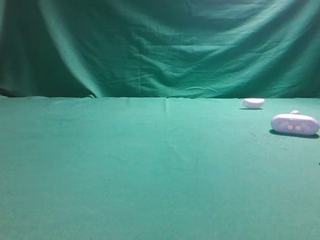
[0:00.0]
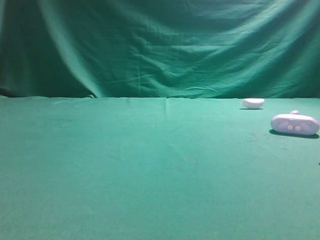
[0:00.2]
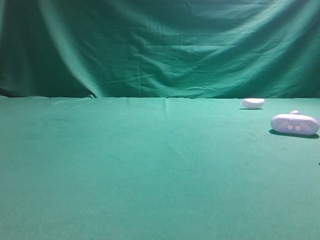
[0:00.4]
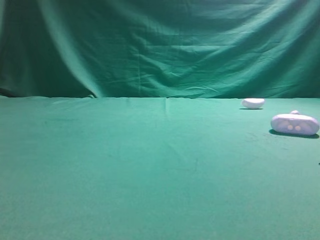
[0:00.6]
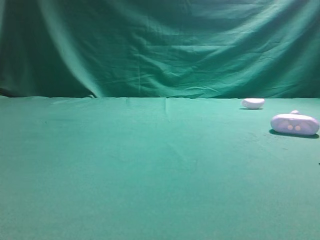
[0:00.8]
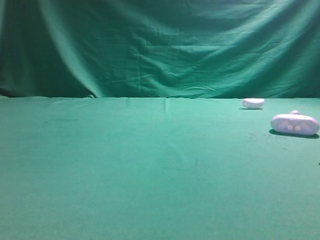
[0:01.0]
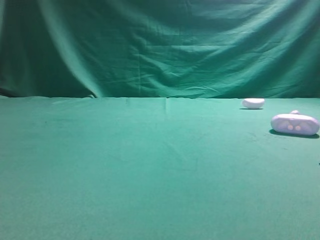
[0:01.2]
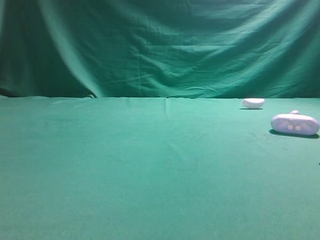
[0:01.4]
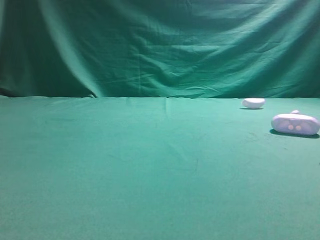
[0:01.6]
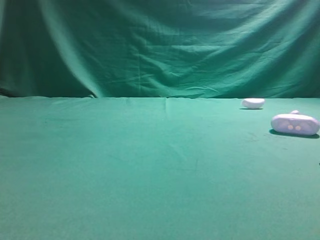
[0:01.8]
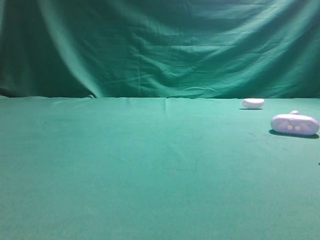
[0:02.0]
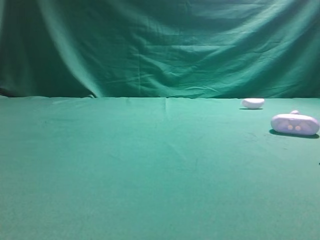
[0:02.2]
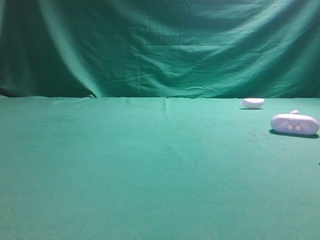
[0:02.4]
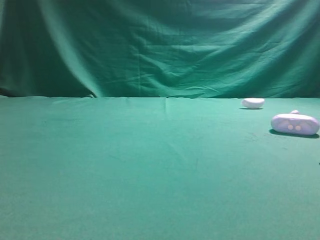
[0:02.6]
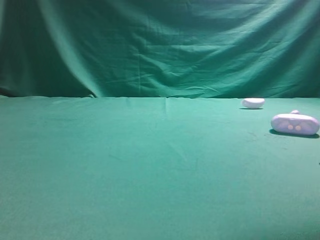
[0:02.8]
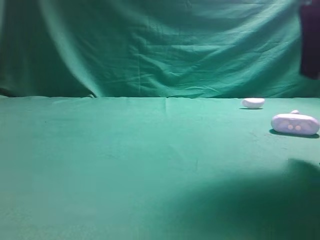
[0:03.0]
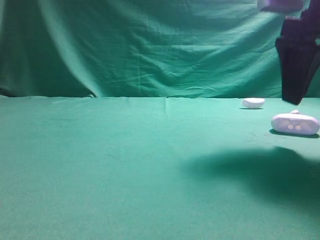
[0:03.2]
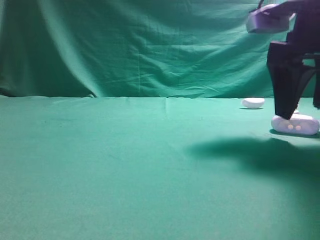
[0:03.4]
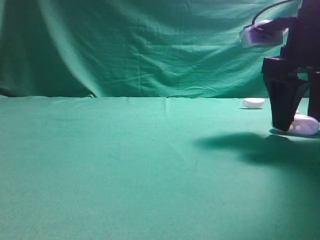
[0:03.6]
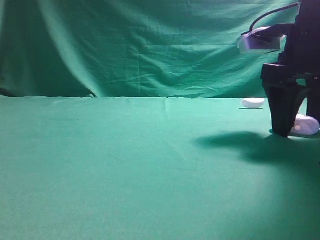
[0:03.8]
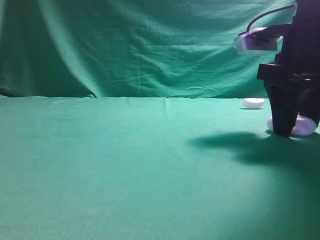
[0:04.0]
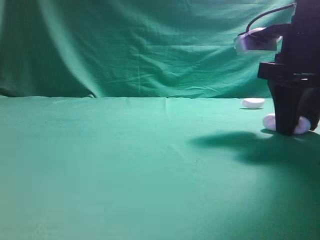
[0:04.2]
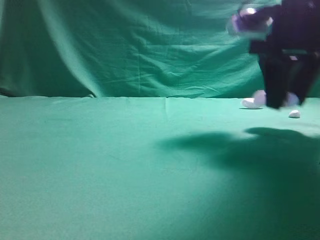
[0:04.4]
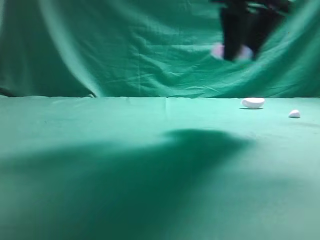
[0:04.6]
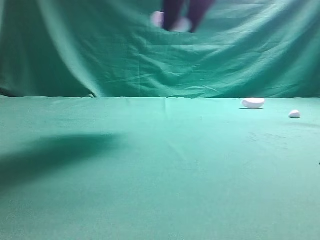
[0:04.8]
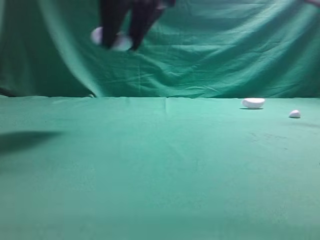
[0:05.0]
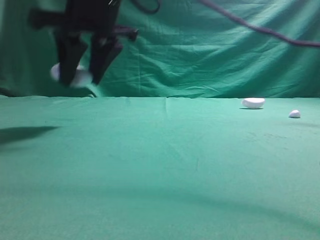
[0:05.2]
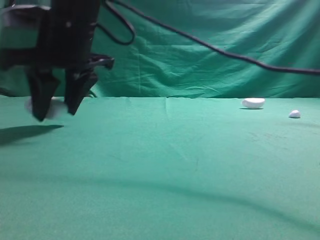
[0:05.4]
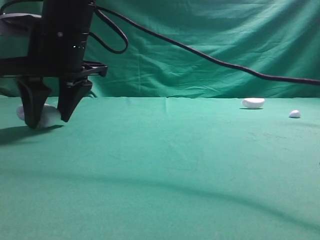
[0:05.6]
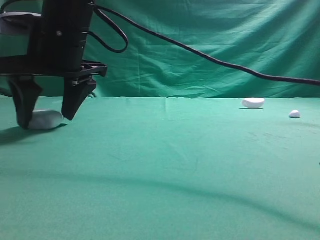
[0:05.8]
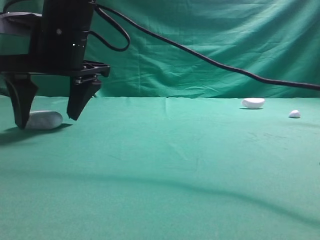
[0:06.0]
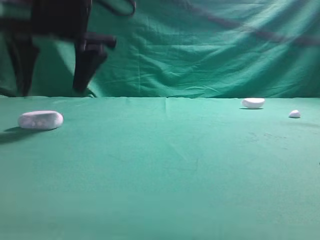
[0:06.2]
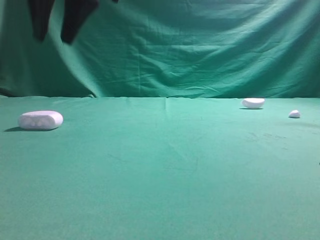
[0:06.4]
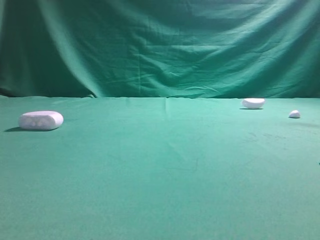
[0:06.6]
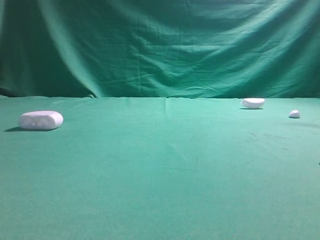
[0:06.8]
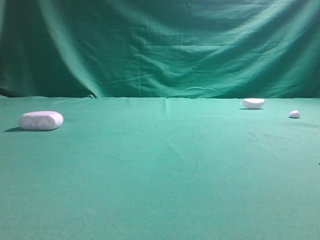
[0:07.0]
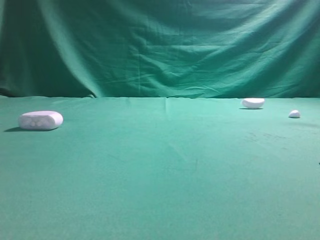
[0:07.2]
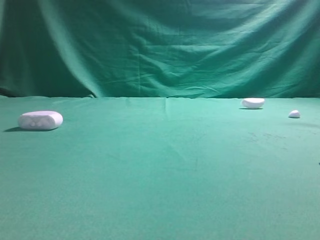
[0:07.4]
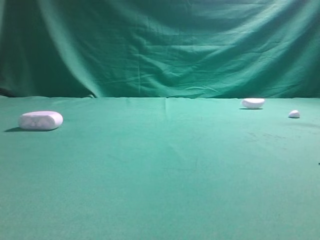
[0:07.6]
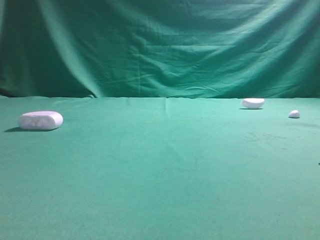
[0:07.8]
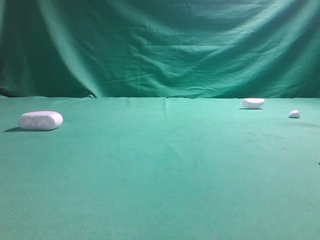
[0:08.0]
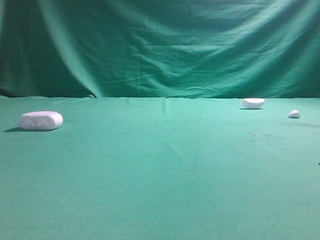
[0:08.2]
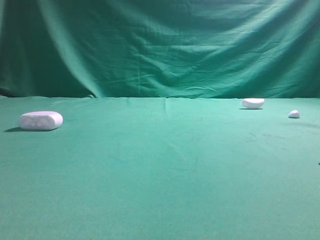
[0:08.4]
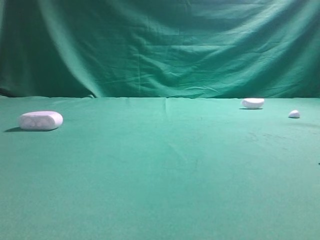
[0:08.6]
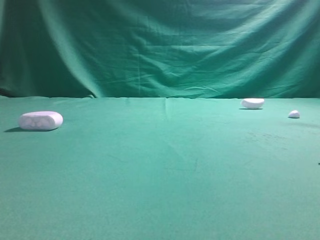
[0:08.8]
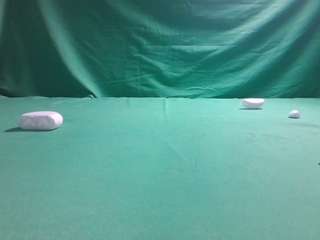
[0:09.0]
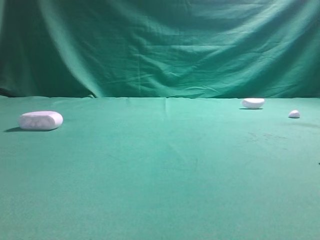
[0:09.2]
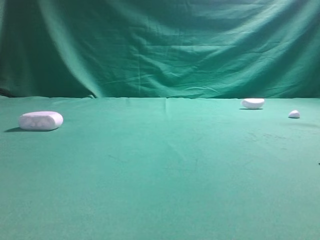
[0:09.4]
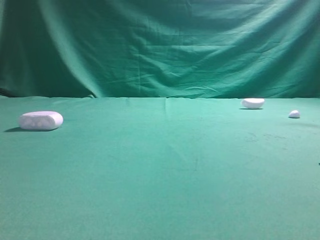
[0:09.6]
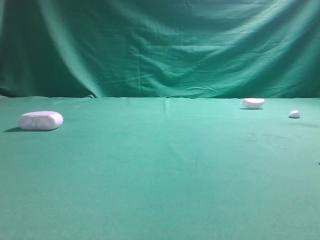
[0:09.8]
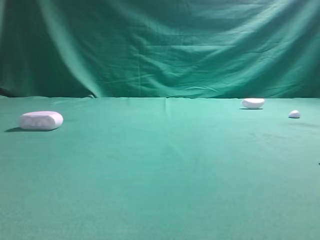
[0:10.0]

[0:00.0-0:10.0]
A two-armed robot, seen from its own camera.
Step, 0:00.0 to 0:04.4: Grasp the Bluetooth earphone case.
Step, 0:04.6 to 0:06.2: Place bluetooth earphone case on the left side of the table.

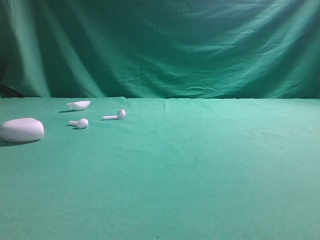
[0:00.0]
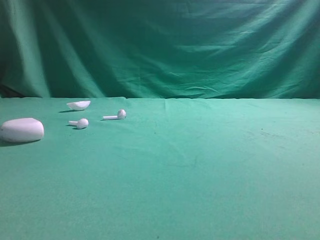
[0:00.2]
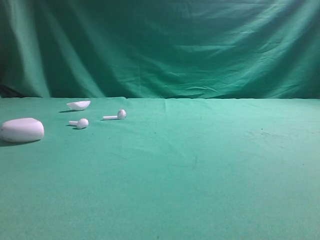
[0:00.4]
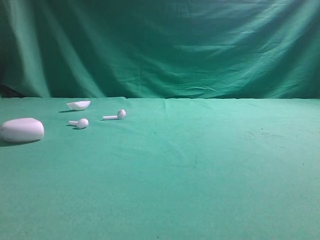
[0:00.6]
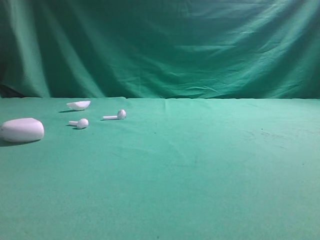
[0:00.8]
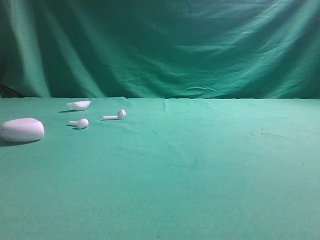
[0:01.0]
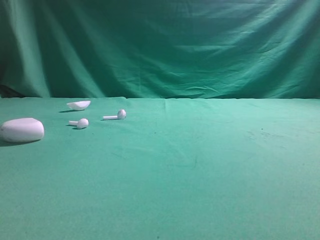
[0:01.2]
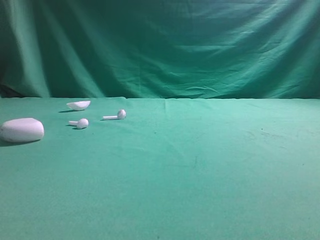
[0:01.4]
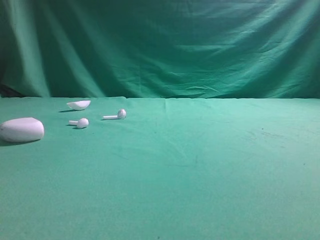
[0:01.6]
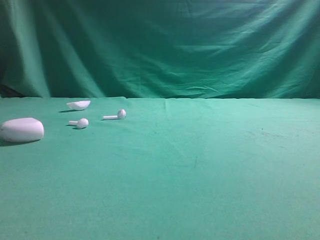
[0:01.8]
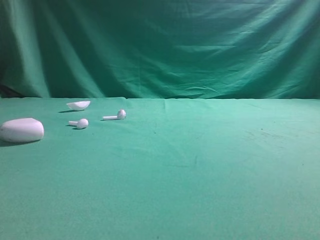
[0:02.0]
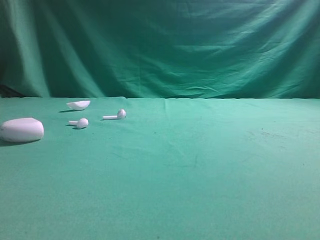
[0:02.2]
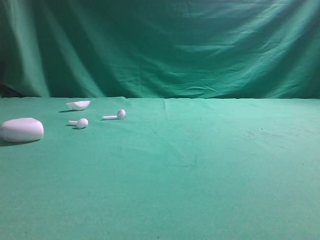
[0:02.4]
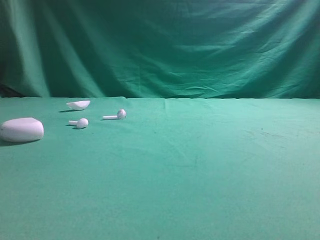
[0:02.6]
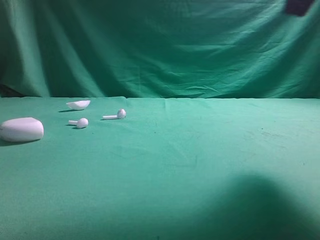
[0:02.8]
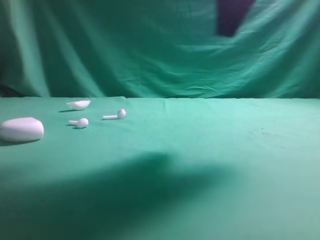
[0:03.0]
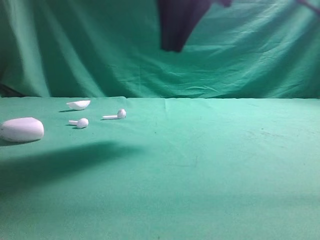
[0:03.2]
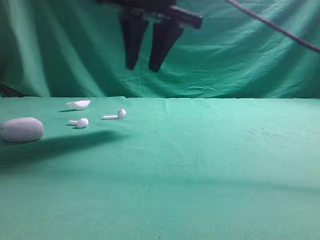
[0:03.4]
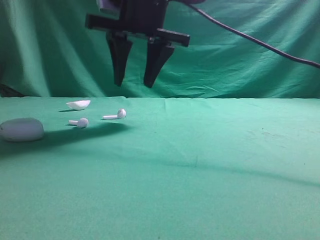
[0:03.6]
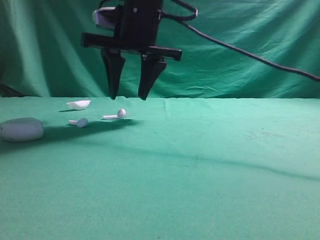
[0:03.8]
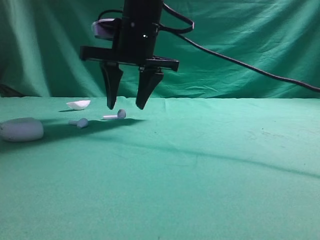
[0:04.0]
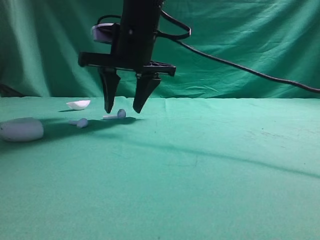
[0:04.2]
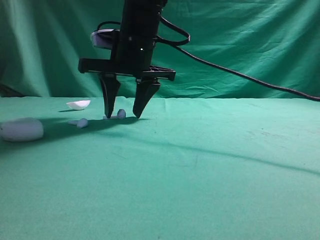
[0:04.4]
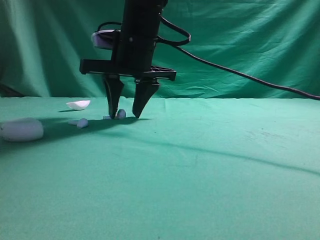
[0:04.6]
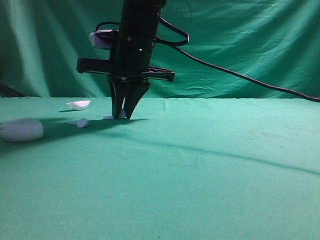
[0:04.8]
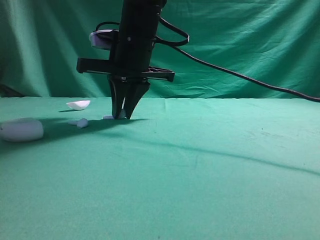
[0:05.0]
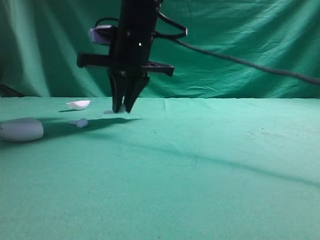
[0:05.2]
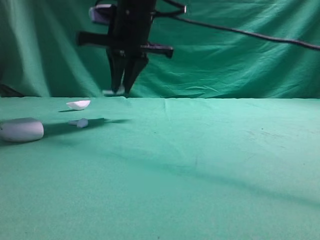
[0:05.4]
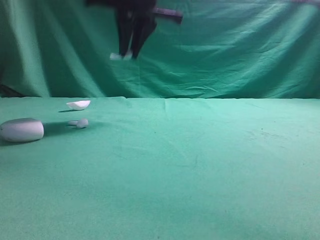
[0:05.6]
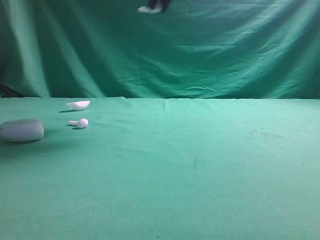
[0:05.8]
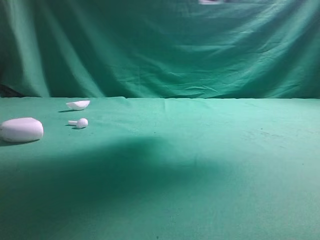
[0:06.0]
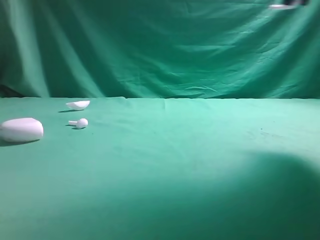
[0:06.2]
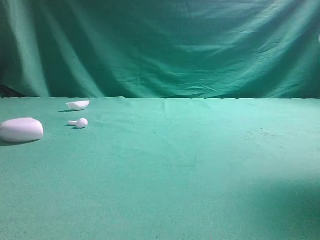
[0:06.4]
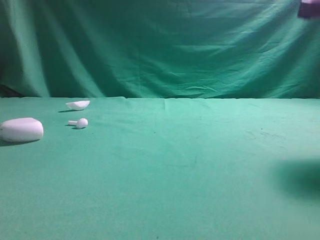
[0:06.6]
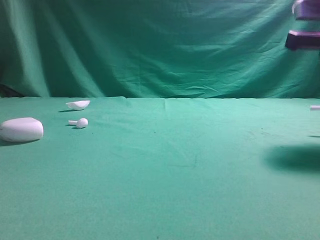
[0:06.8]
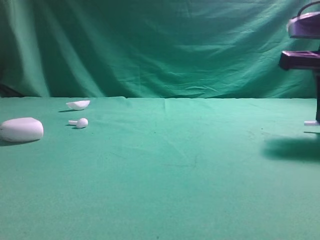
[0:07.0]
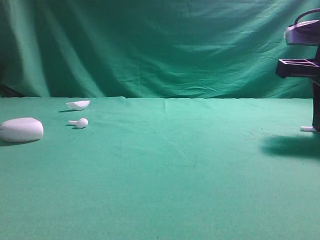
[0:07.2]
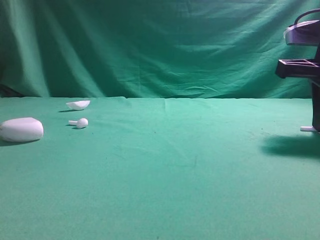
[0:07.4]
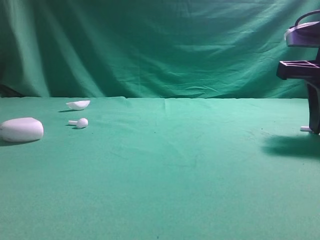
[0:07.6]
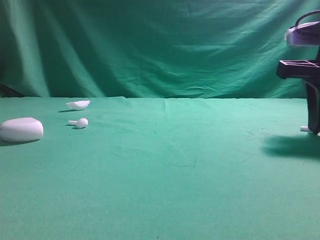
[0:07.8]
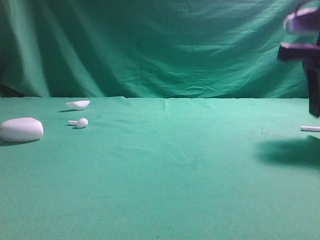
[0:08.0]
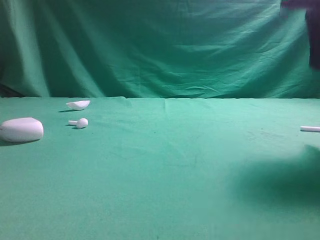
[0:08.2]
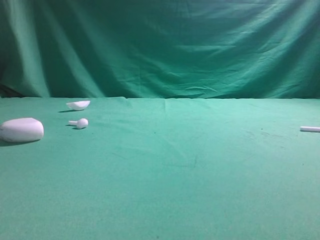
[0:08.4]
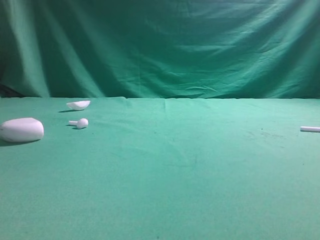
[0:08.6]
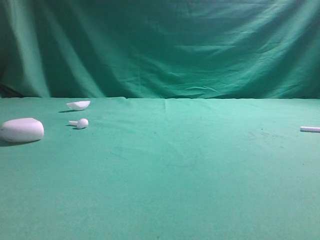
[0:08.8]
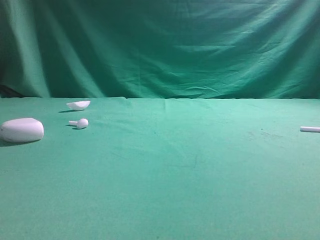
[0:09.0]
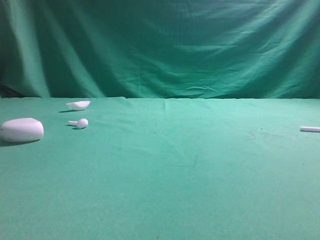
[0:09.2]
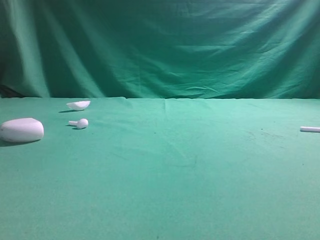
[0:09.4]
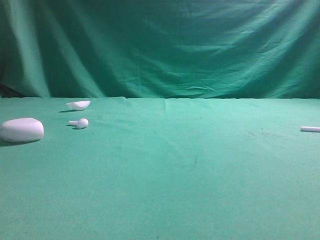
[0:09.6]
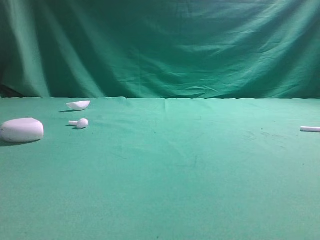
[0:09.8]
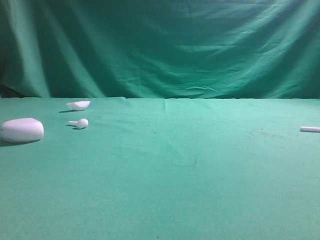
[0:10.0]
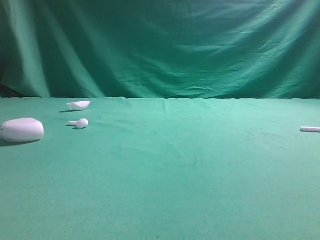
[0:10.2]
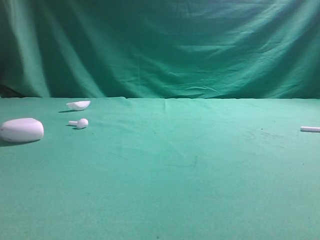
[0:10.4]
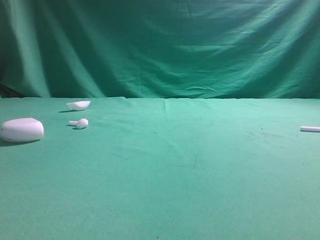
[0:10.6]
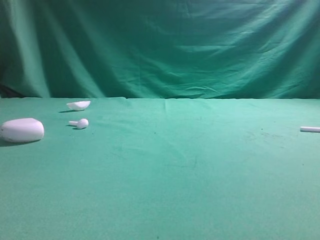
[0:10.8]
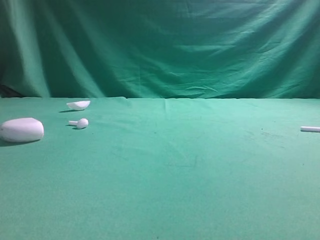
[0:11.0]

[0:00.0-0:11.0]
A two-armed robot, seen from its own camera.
Step, 0:00.0 to 0:05.2: Grasp the Bluetooth earbud.
Step, 0:05.4 to 0:07.8: Place bluetooth earbud on the right side of the table.

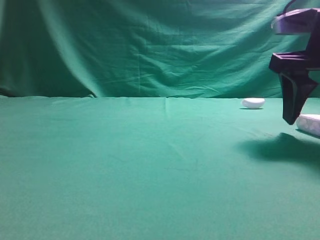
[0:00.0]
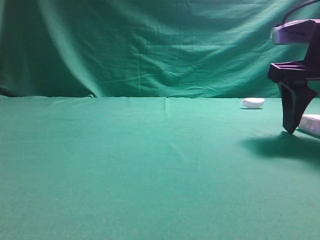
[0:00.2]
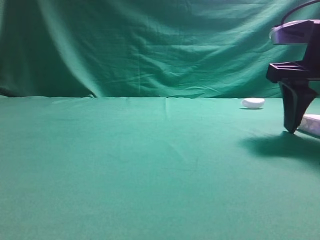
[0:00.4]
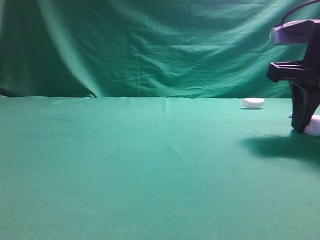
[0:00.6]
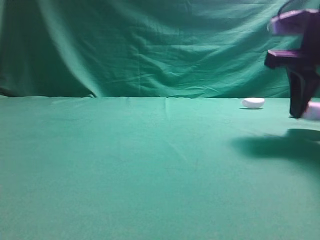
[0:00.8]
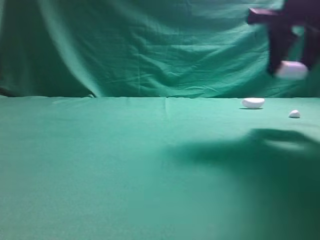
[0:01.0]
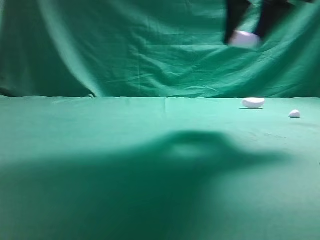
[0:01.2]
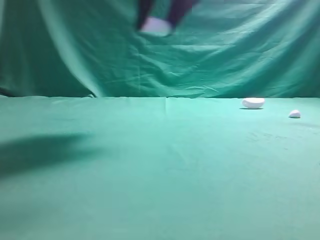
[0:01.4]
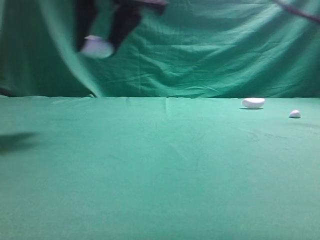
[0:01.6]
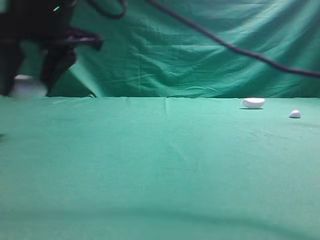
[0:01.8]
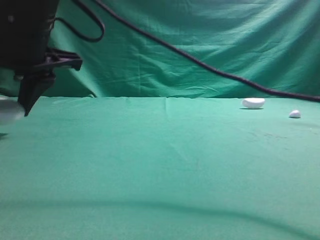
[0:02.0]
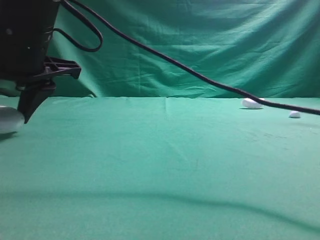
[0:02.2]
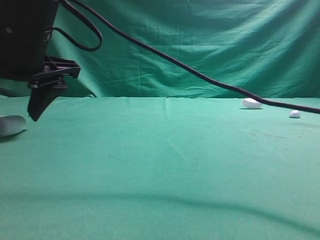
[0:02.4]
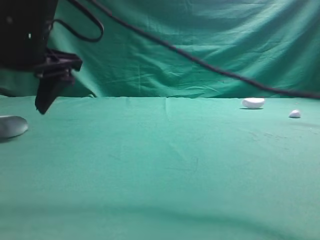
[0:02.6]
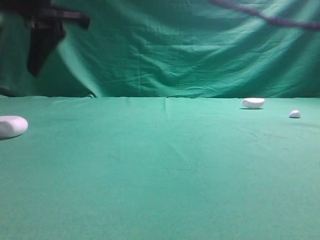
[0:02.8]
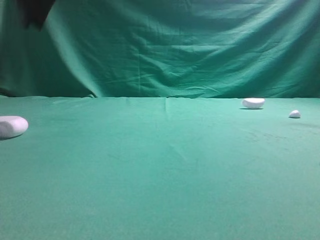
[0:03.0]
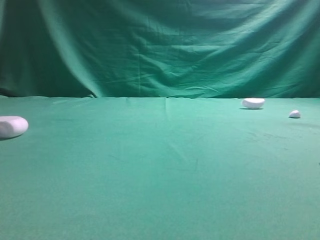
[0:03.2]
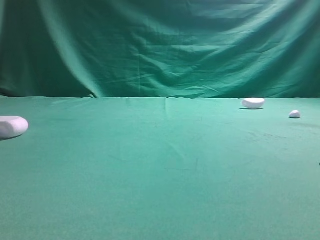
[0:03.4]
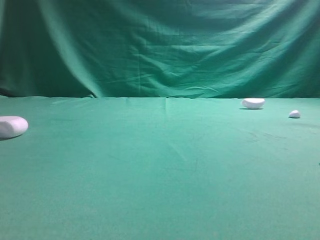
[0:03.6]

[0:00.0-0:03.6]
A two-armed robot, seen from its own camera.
Step, 0:01.2 to 0:02.6: Place bluetooth earphone case on the left side of the table.
